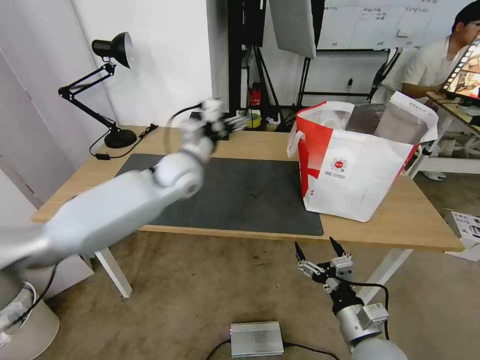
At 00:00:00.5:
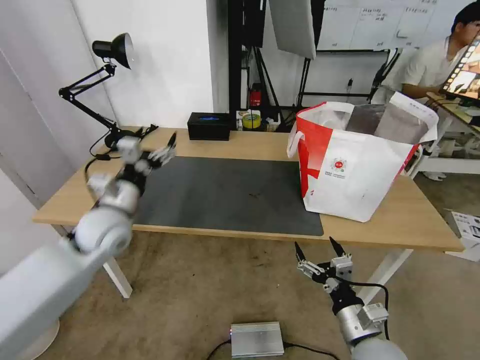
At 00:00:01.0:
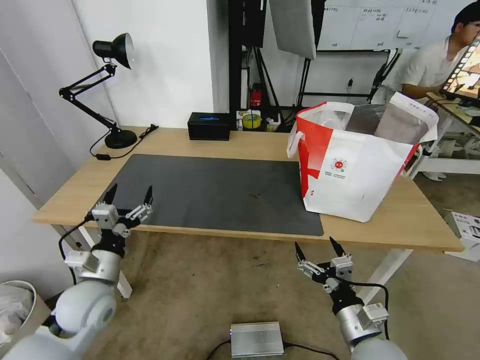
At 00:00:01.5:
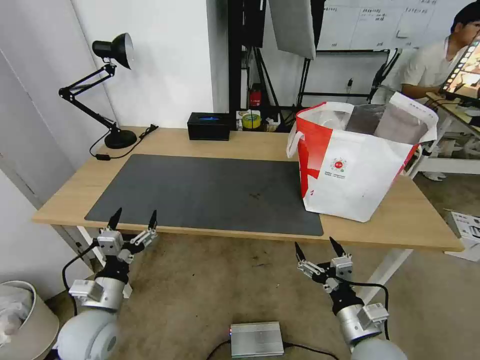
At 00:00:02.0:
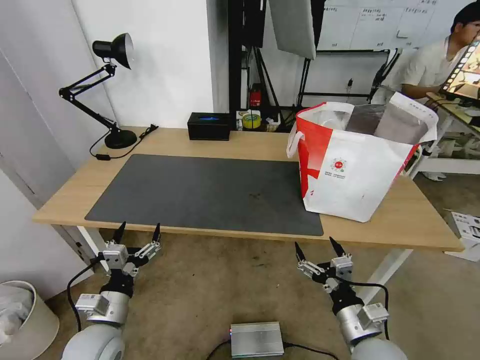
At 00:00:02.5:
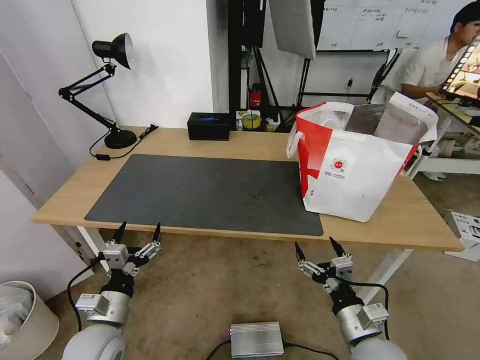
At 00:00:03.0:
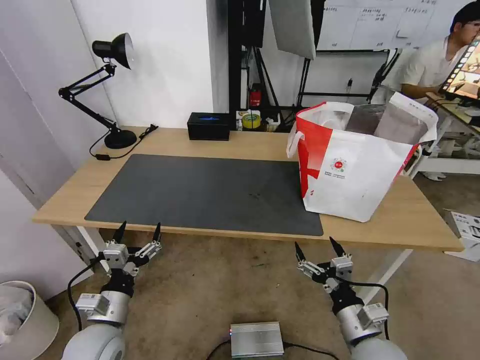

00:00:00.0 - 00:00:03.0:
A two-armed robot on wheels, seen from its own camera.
Task of the whole recording: Pick up the trash from the table and place it into the takeout bag.
00:00:00.0 - 00:00:01.5: The left gripper moves backward, downward and to the left, approximately 35 cm.
00:00:01.5 - 00:00:03.0: There are only small adjustments of the grippers.

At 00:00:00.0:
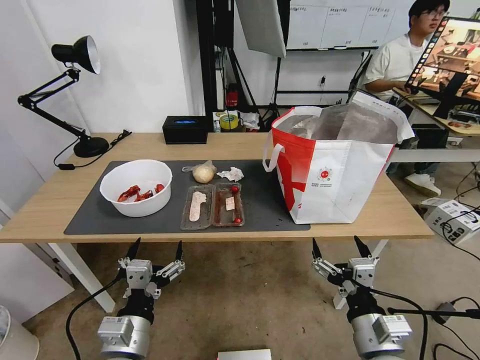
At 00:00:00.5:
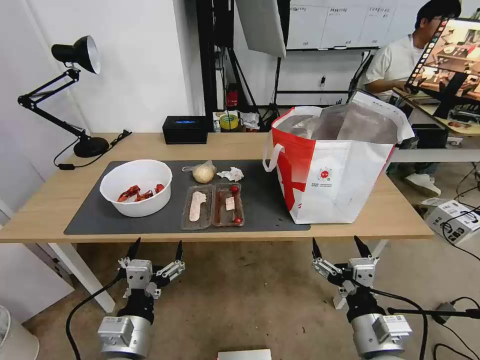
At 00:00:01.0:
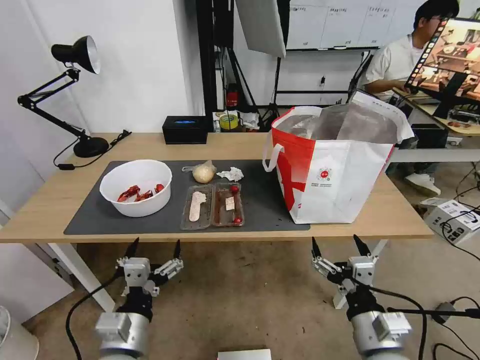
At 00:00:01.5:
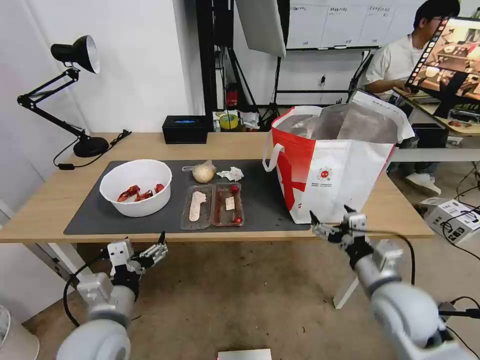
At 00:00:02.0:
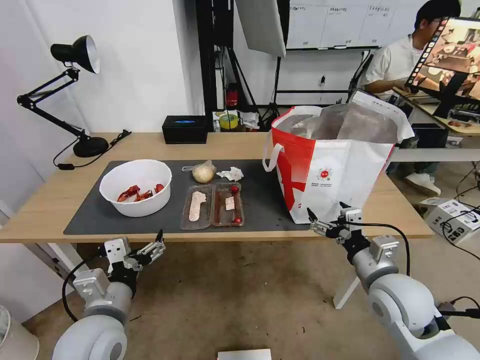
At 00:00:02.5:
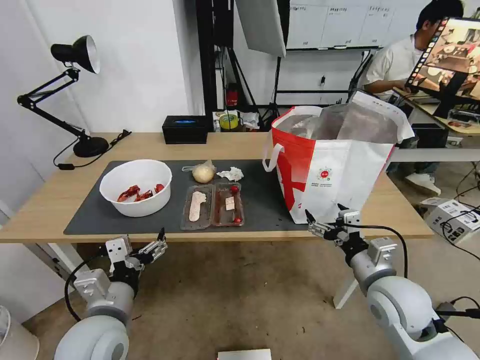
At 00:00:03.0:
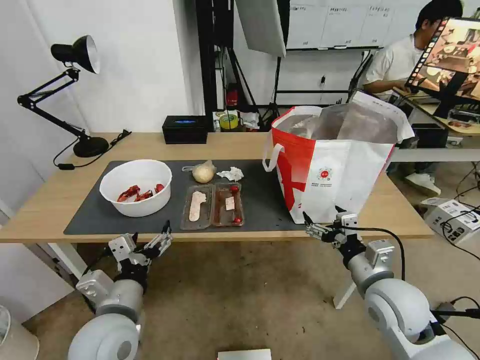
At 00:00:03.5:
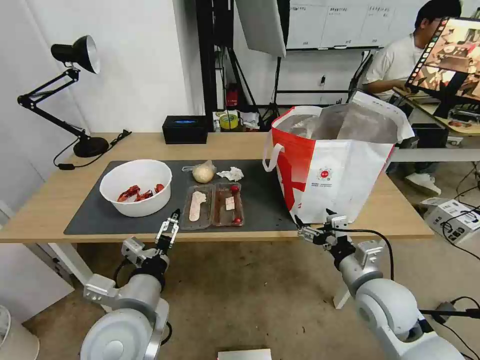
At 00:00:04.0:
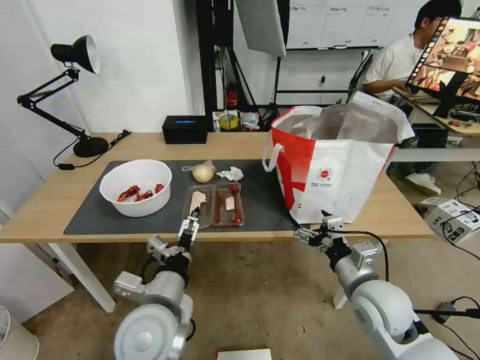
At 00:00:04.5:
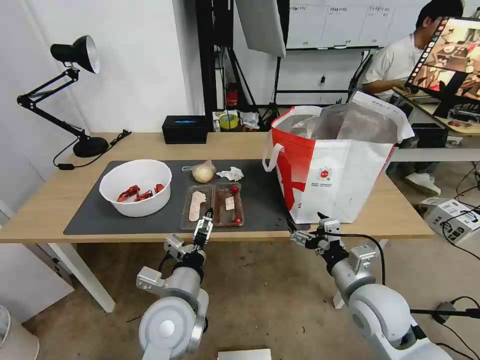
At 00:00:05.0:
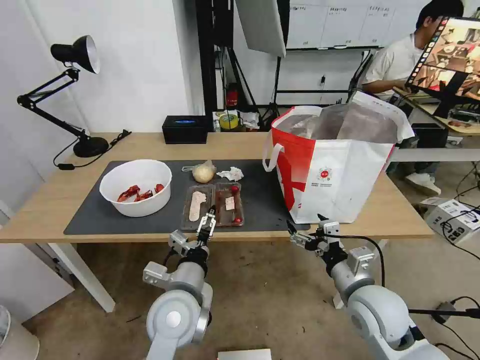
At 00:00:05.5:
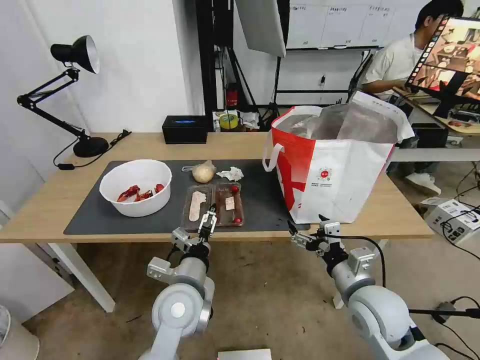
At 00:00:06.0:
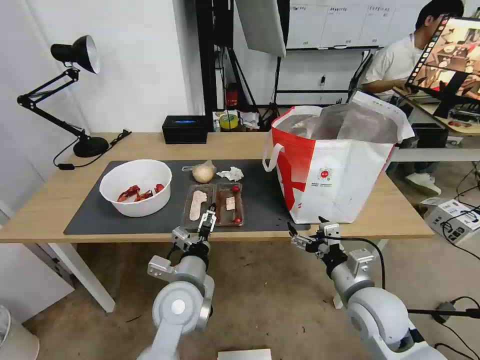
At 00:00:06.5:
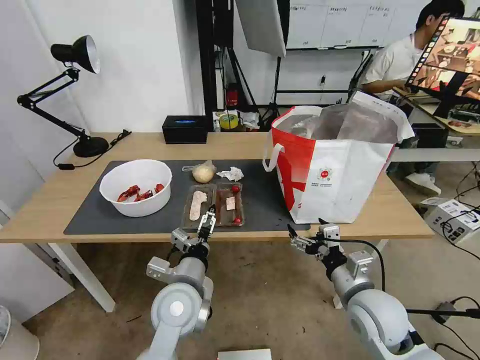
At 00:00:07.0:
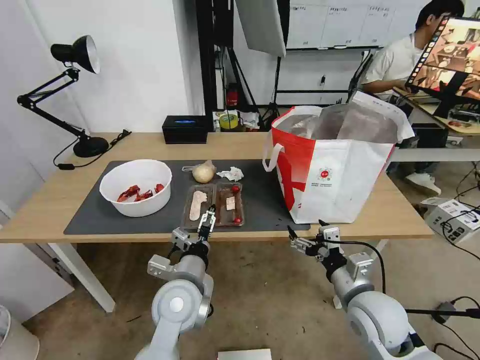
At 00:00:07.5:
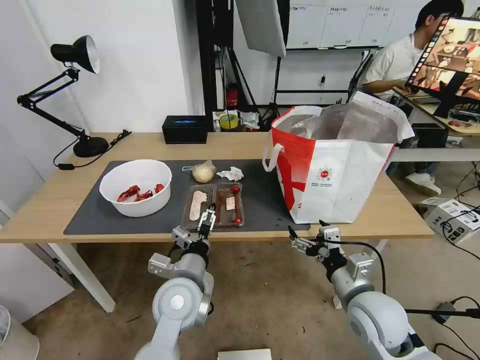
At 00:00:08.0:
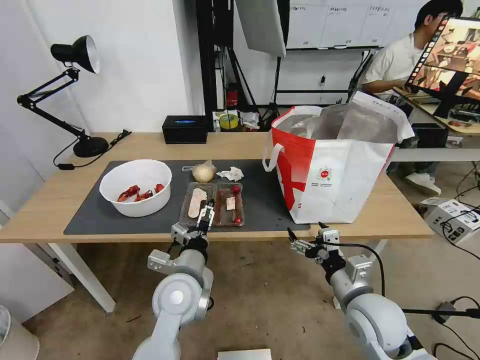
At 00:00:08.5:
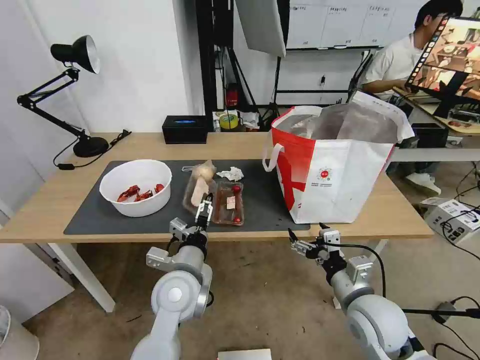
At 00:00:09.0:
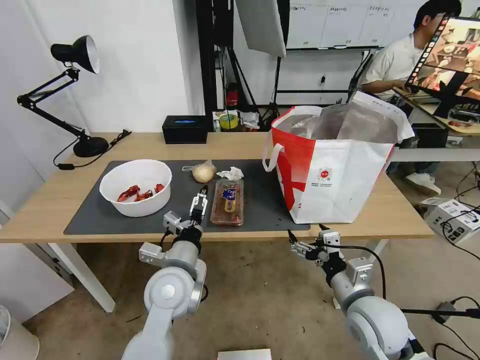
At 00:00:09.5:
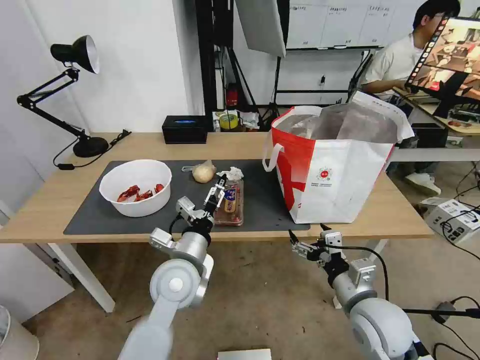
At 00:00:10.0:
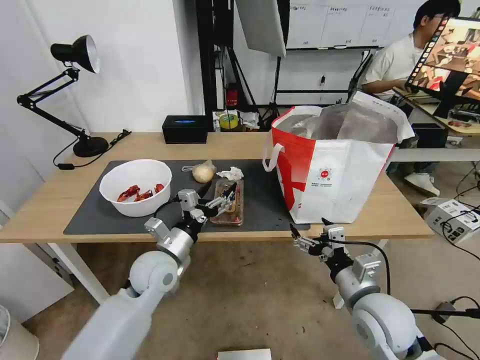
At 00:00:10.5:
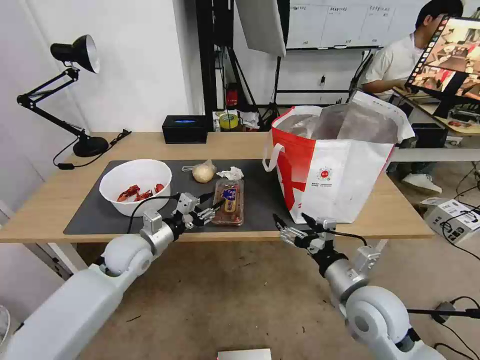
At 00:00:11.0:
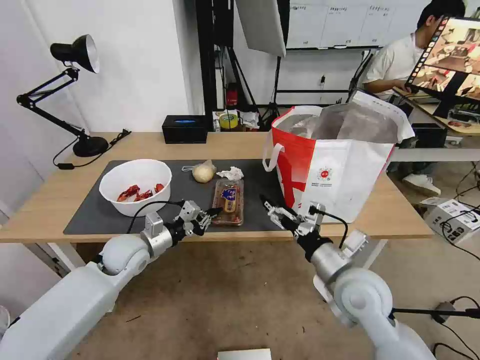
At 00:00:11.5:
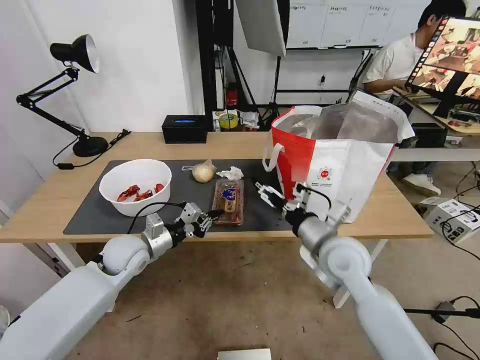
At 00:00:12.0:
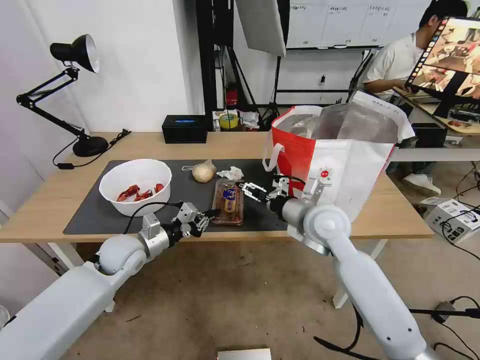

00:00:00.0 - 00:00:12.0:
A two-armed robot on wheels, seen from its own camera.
Task of the whole recording: Pick up the trash from the table and place it into the takeout bag.
00:00:02.0 - 00:00:04.0: The left gripper moves to the right, approximately 10 cm.
00:00:04.0 - 00:00:06.0: The left gripper shifts some 5 cm forward.
00:00:06.0 - 00:00:08.0: The grippers make only small movements.
00:00:08.0 - 00:00:10.0: The left gripper is displaced to the left and forward by roughly 10 cm.
00:00:10.0 - 00:00:12.0: The right gripper goes some 20 cm forward, to the left and upward; the left gripper travels to the left and forward by about 10 cm, and closes up.

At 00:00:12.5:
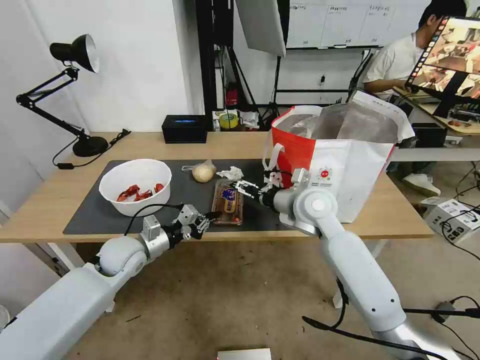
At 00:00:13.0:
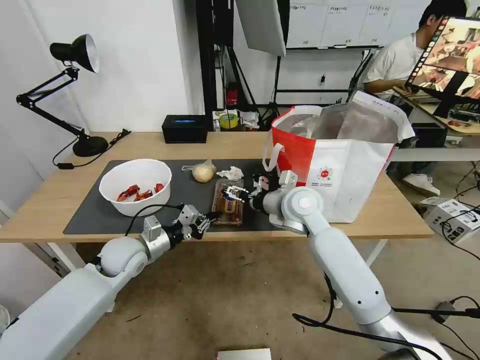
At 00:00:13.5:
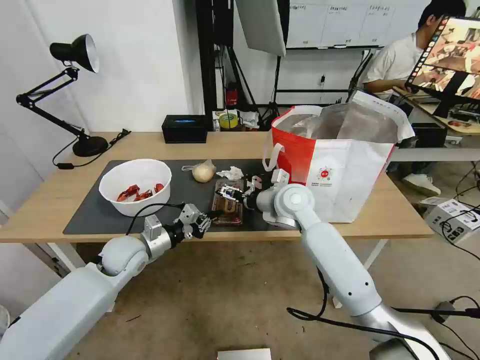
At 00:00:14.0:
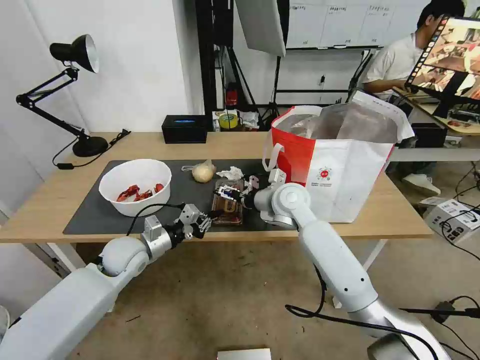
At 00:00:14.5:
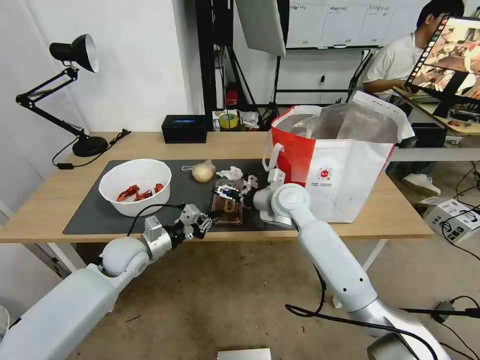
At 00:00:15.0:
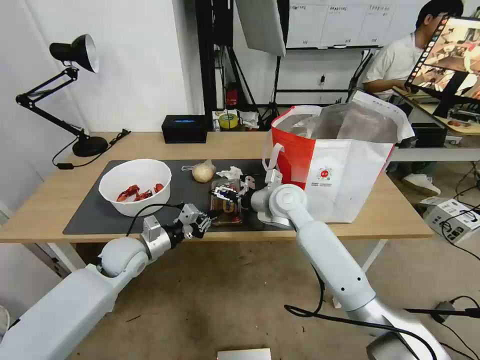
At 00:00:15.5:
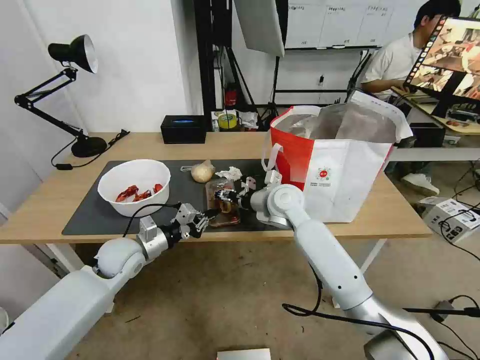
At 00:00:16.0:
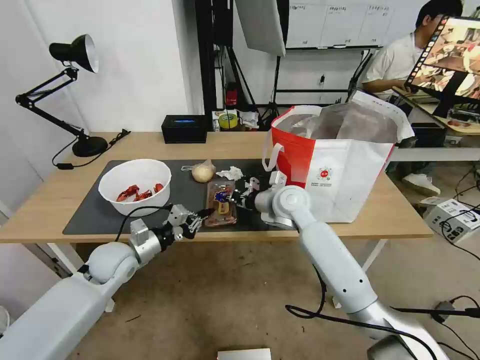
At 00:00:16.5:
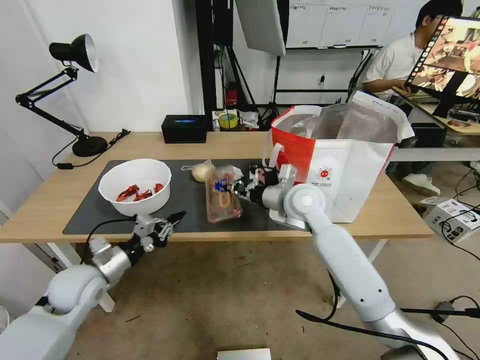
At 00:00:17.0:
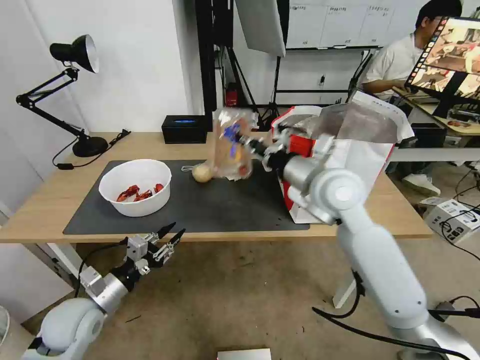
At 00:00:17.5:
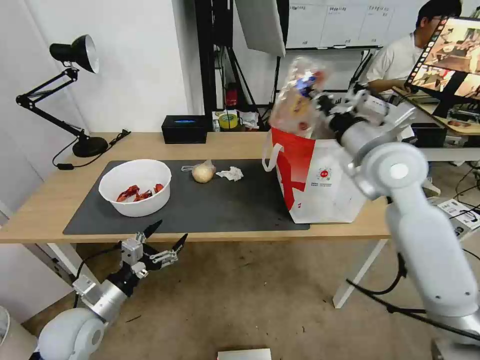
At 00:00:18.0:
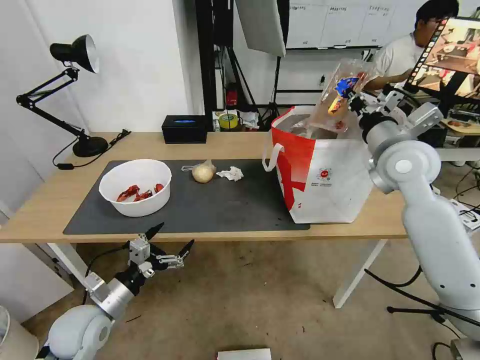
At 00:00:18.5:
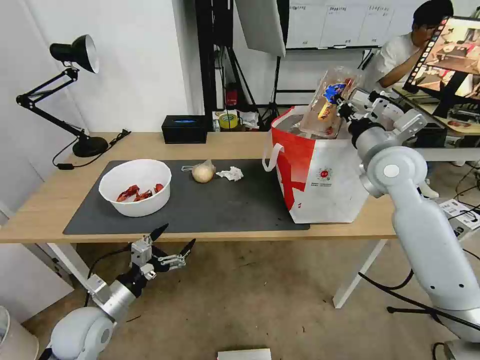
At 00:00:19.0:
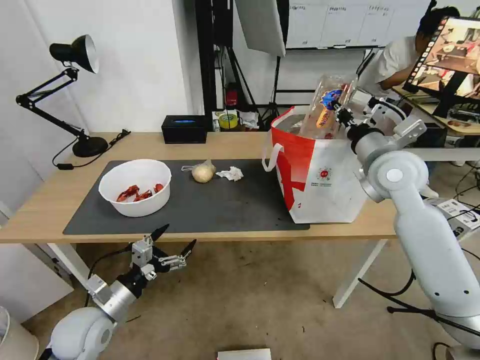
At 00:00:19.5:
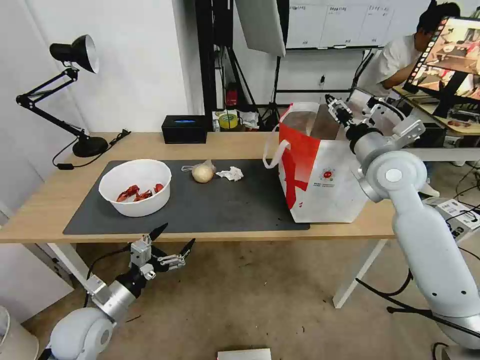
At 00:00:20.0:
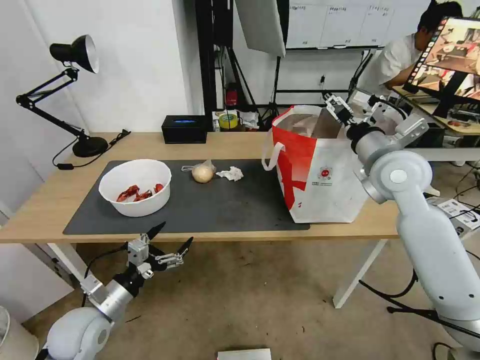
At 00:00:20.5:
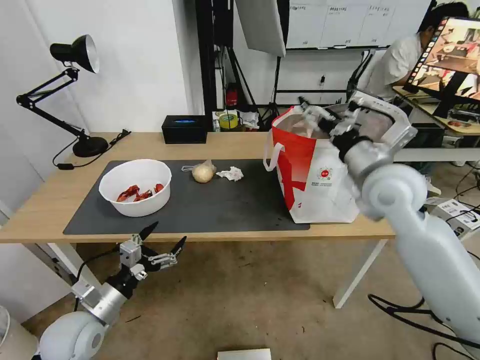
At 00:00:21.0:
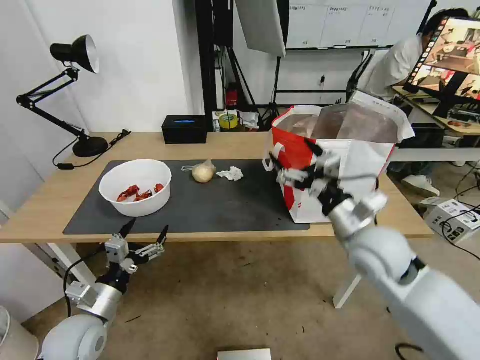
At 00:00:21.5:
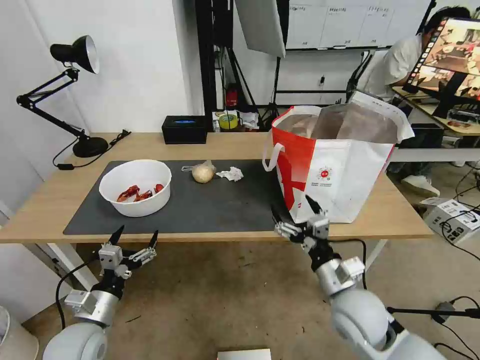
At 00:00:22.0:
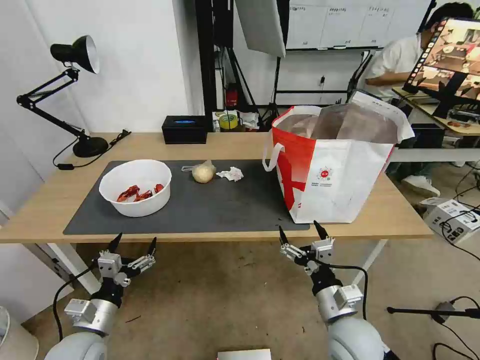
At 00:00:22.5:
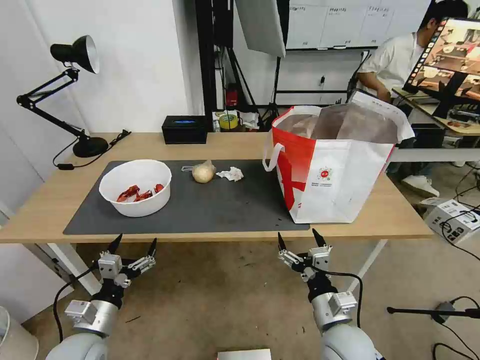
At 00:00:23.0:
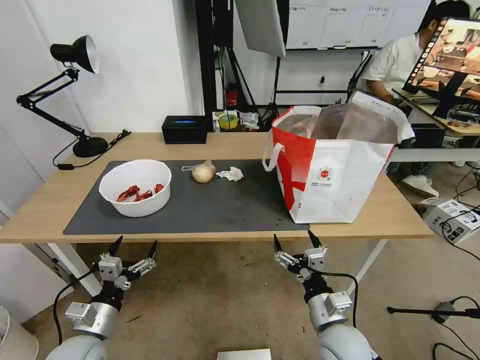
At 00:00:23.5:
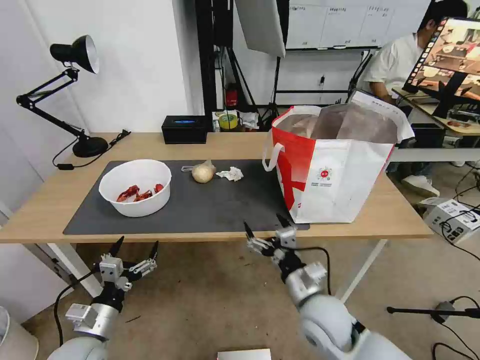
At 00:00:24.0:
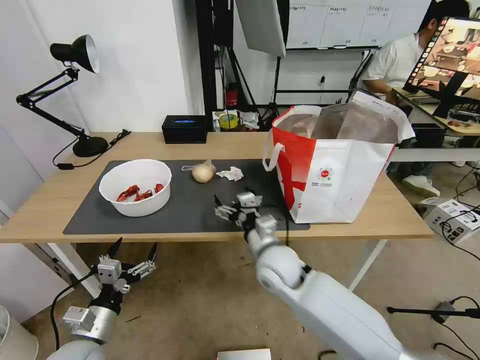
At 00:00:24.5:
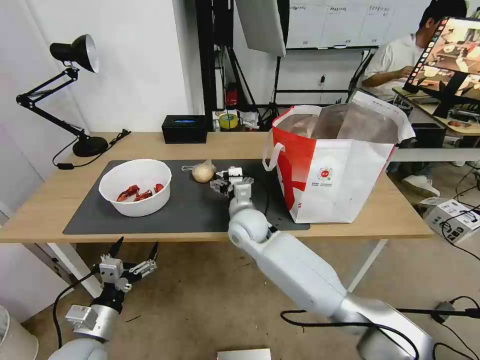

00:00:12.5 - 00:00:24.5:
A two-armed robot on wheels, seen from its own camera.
Task of the whole recording: Pick up the trash from the table and place it into the takeout bag.
00:00:12.5 - 00:00:14.5: The right gripper moves about 5 cm.
00:00:14.5 - 00:00:16.5: The right gripper closes, while the left gripper heads backward and to the left, covering approximately 10 cm.
00:00:16.5 - 00:00:18.5: The right gripper travels to the right and upward by some 20 cm. The left gripper is displaced backward by some 10 cm, and opens.
00:00:18.5 - 00:00:20.5: The right gripper heads backward, covering some 5 cm, and opens.
00:00:20.5 - 00:00:22.5: The right gripper shifts roughly 30 cm downward and backward.
00:00:22.5 - 00:00:24.5: The right gripper heads forward and to the left, covering some 30 cm.
